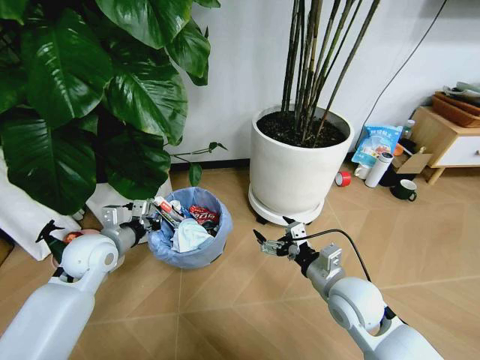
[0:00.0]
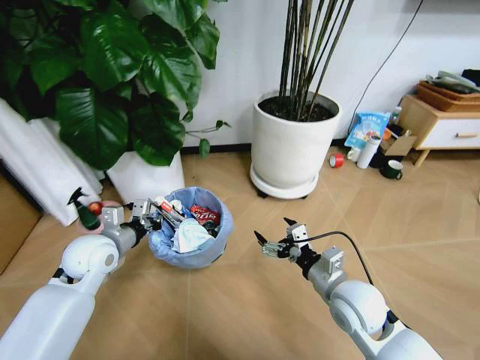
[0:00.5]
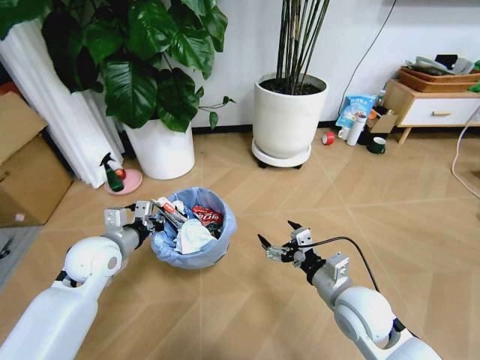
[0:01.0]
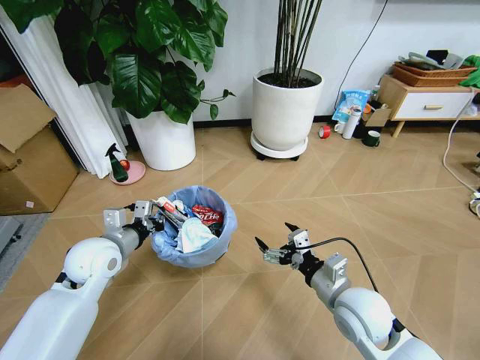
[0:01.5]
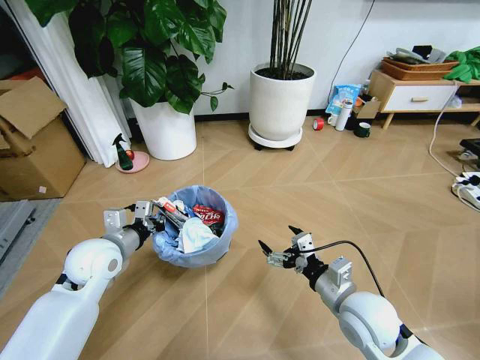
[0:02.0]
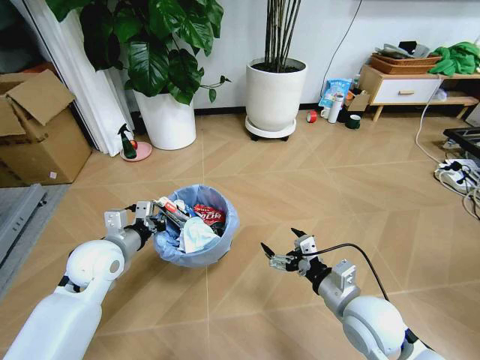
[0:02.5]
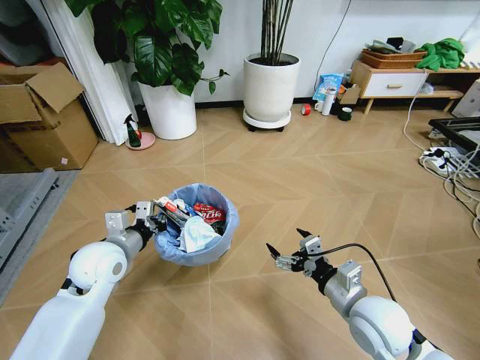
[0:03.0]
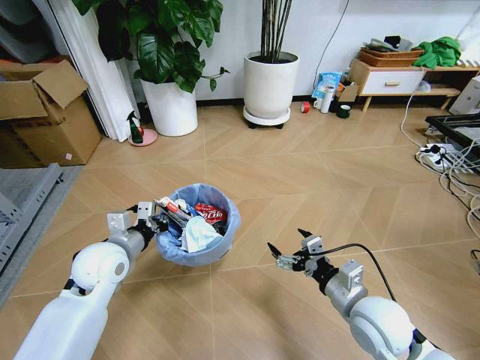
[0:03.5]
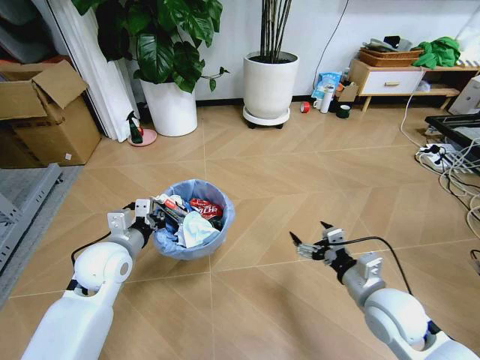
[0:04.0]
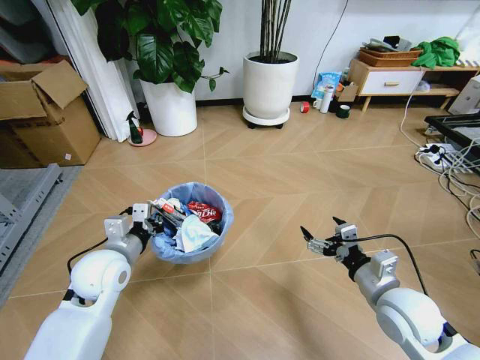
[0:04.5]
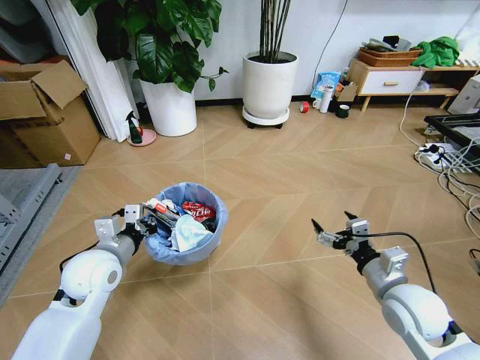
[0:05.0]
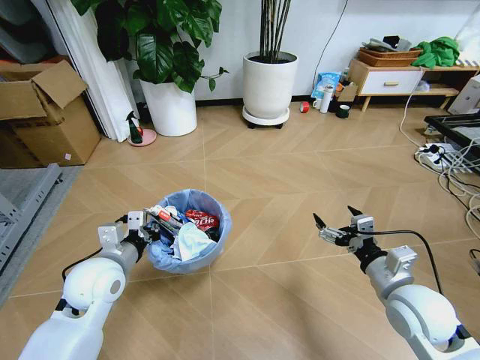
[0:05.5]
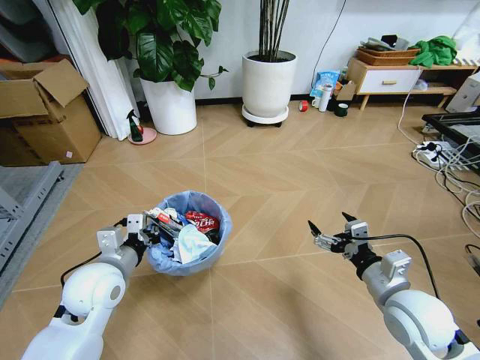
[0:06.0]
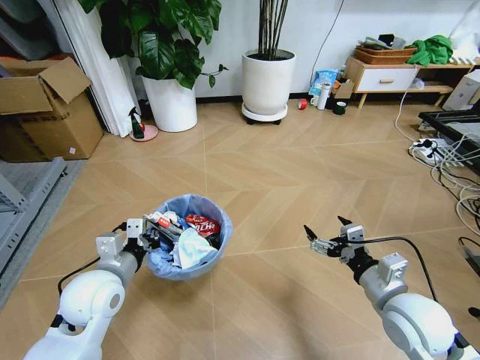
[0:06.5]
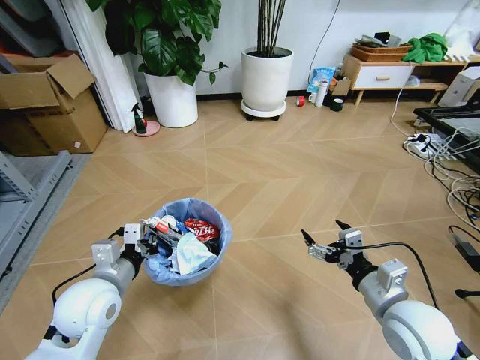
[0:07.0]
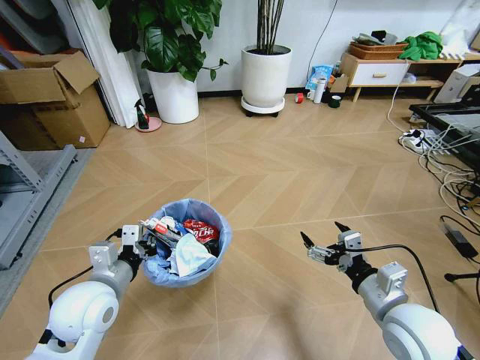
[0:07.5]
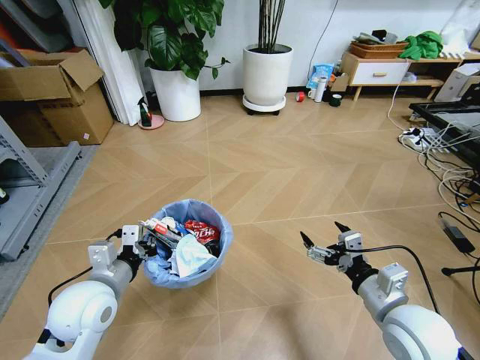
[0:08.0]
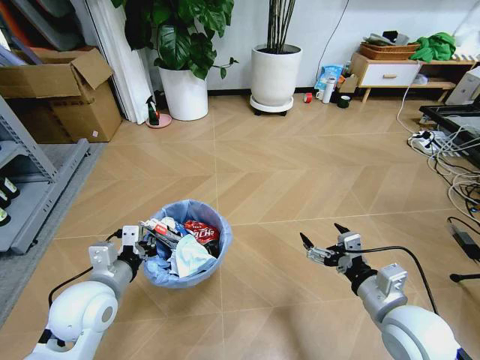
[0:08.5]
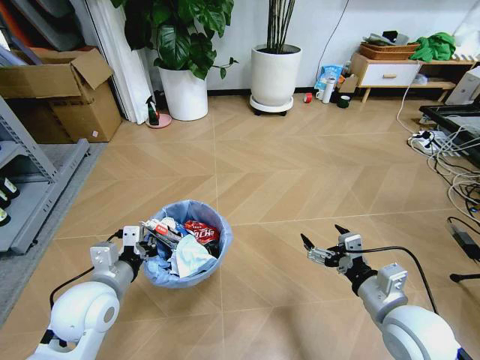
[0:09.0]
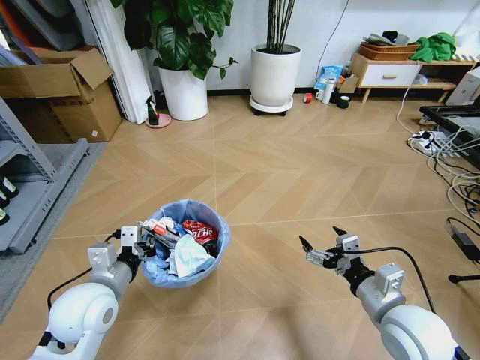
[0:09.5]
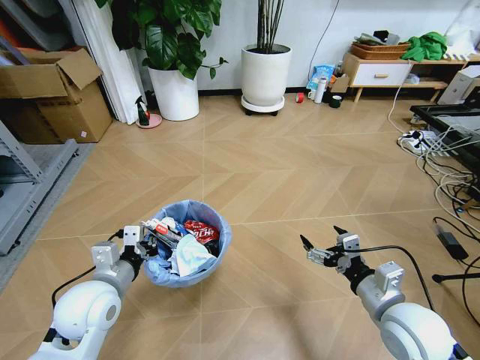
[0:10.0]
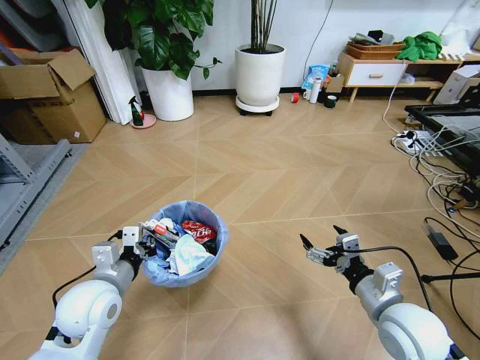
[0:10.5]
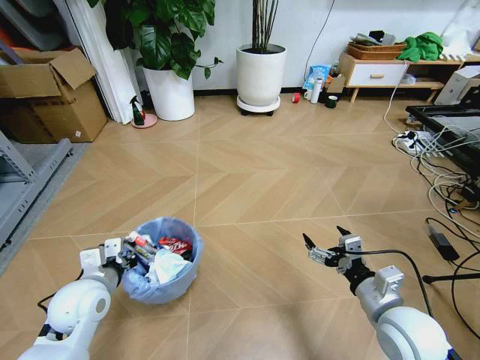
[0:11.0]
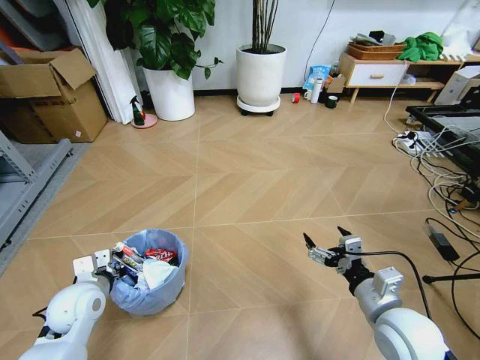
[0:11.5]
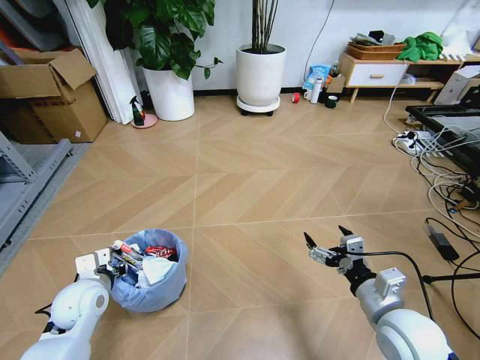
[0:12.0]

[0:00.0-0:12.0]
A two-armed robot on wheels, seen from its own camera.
Task of the whole recording: Pick up the trash bin and place the garbage on the floor into it.
0:02.0 to 0:04.0: The right gripper shifts roughly 5 cm to the right.
0:04.0 to 0:06.0: There are only small adjustments of the grippers.
0:08.0 to 0:10.0: Both grippers stay about where they are.
0:10.0 to 0:12.0: The left gripper heads downward and to the left, covering some 10 cm, and opens up.

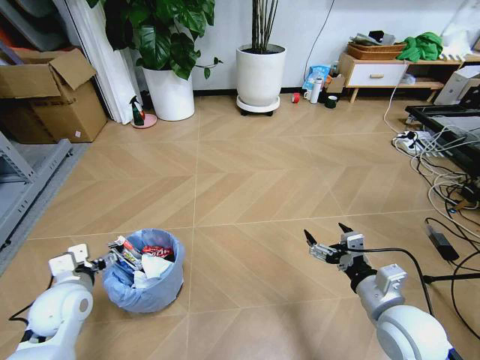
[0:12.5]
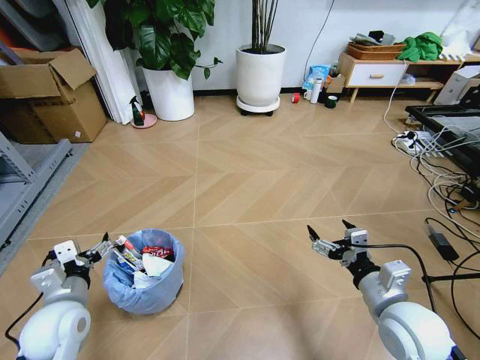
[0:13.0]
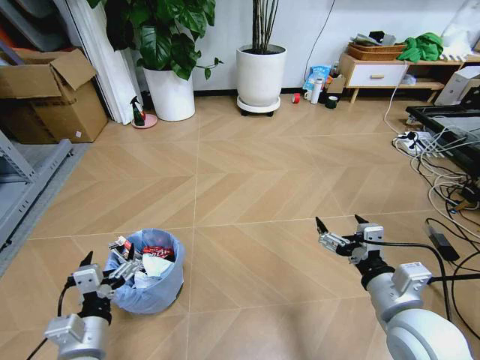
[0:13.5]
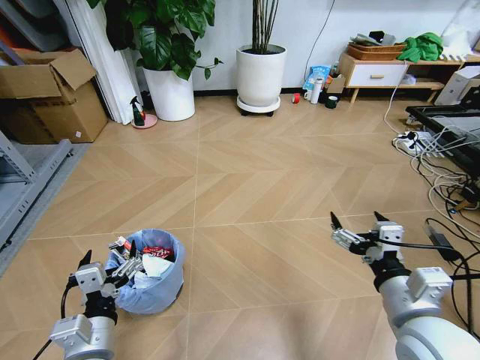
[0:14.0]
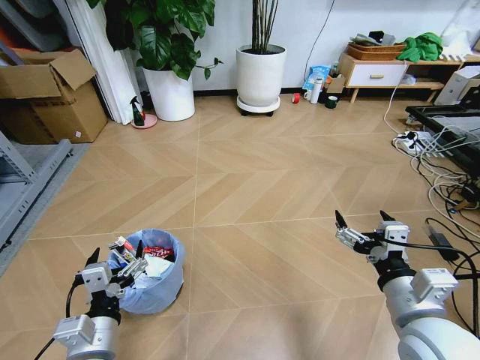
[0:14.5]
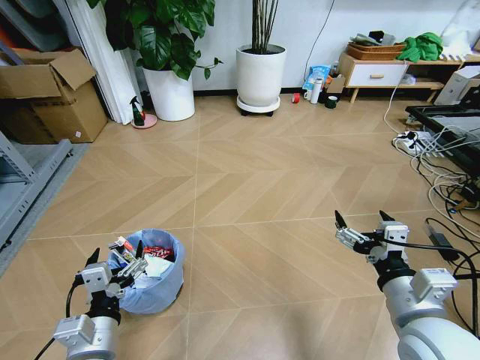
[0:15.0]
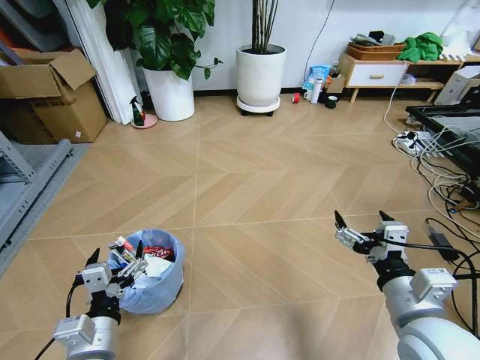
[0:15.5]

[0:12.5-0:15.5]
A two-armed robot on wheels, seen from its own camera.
Task of the whole recording: Pick up the trash bin and place the garbage on the floor into it.
0:12.5 to 0:14.0: The left gripper heads backward and to the right, covering about 20 cm. Meanwhile the right gripper heads upward, covering roughly 5 cm.
0:14.0 to 0:15.5: Neither gripper changes place.

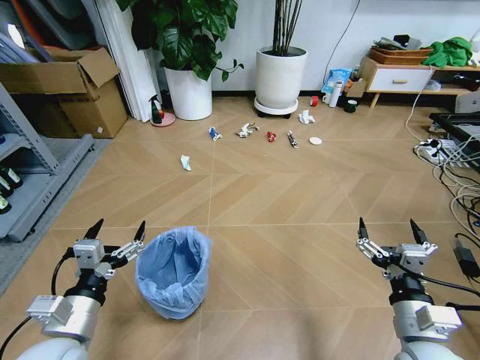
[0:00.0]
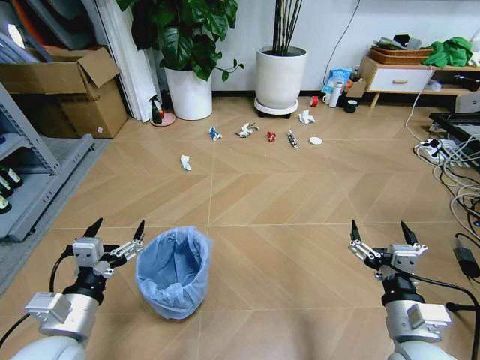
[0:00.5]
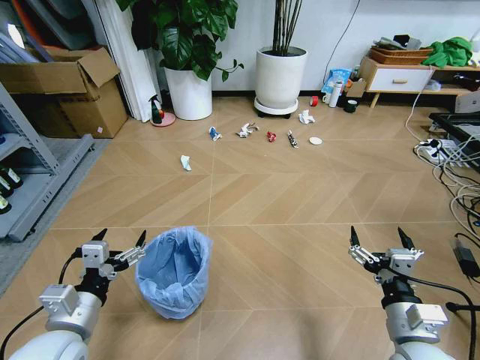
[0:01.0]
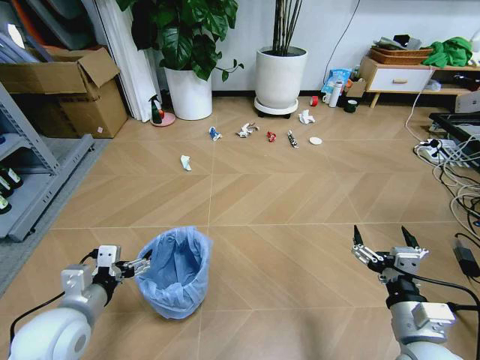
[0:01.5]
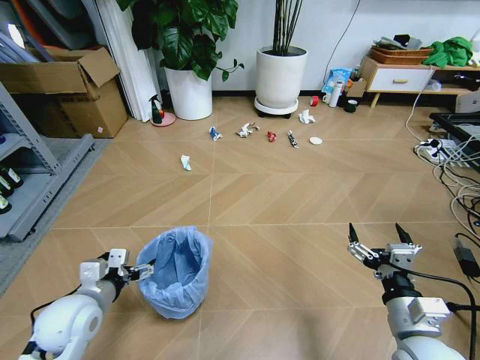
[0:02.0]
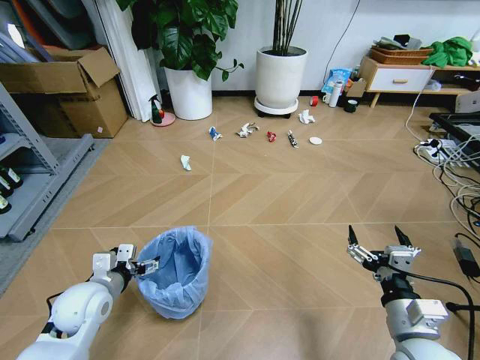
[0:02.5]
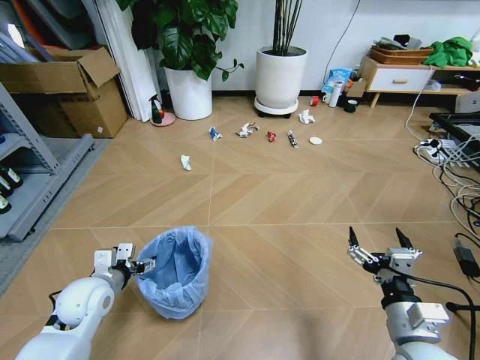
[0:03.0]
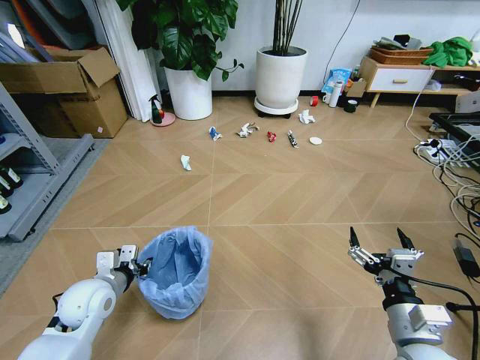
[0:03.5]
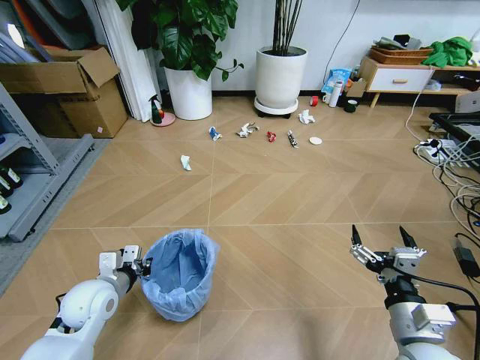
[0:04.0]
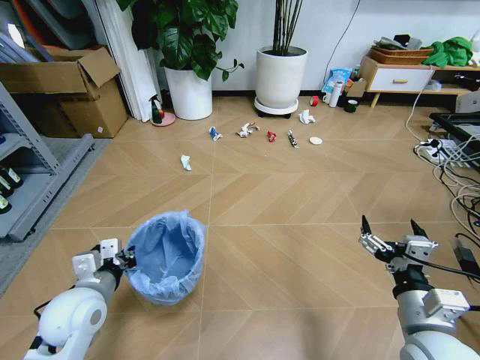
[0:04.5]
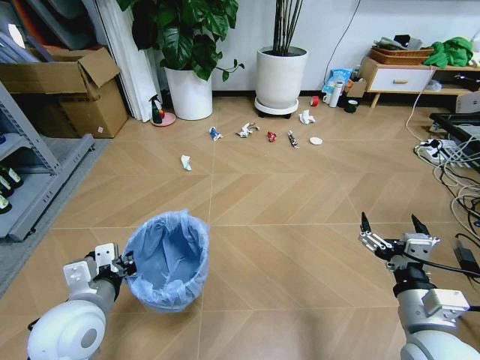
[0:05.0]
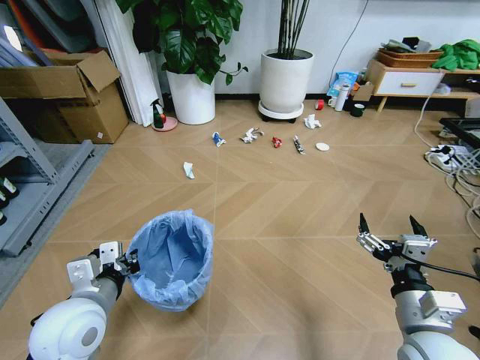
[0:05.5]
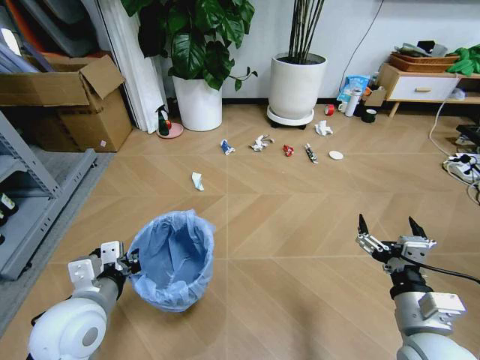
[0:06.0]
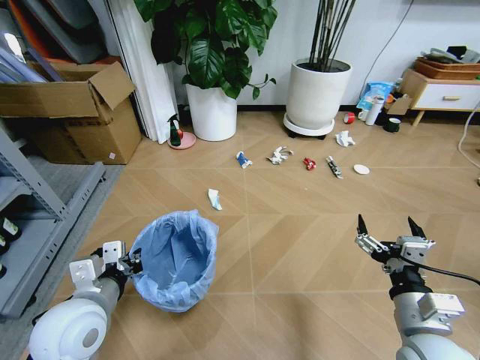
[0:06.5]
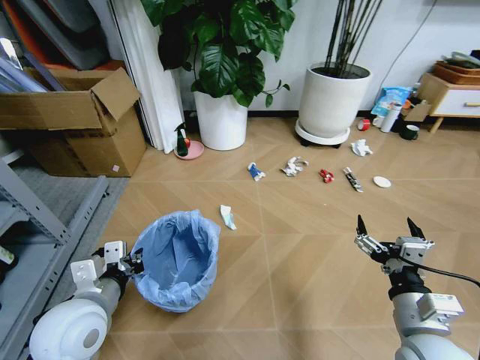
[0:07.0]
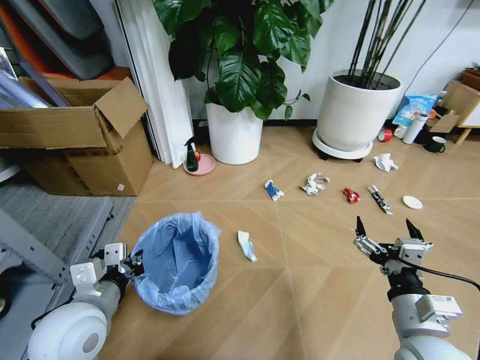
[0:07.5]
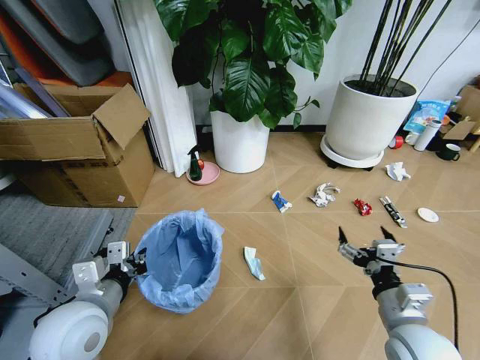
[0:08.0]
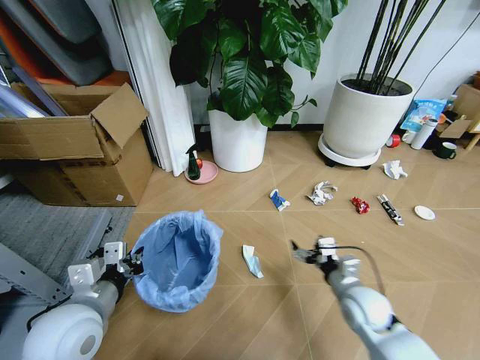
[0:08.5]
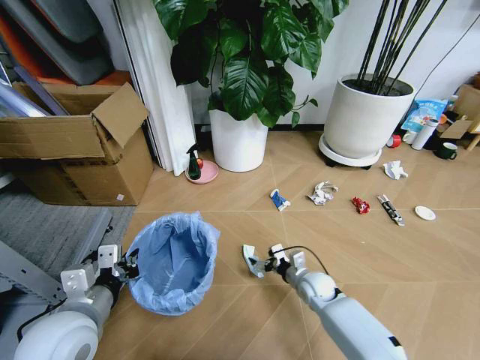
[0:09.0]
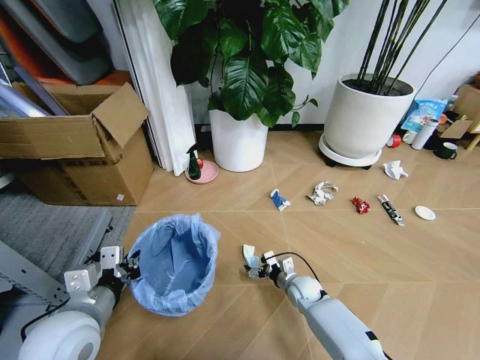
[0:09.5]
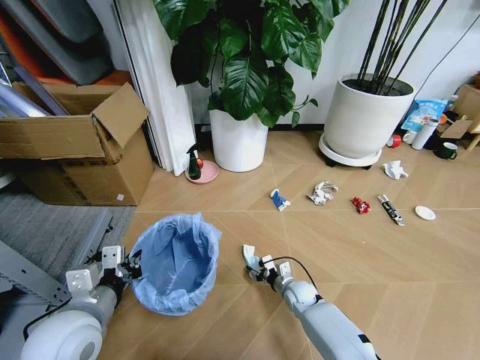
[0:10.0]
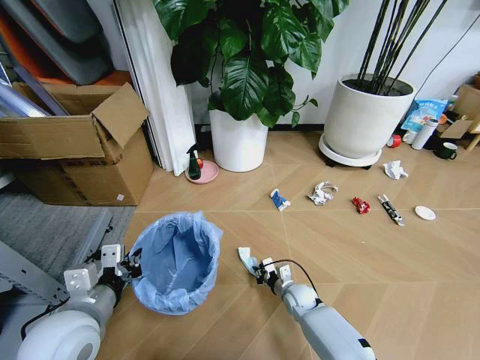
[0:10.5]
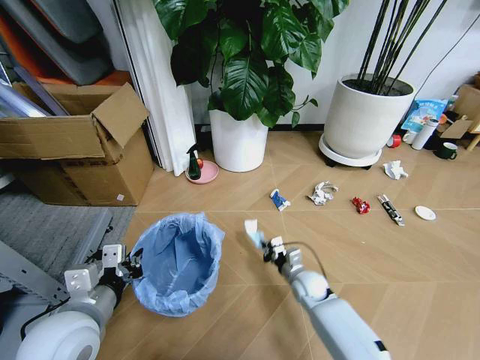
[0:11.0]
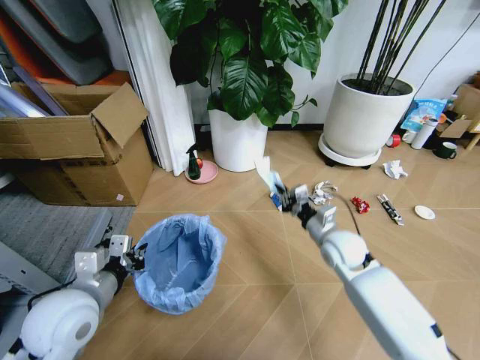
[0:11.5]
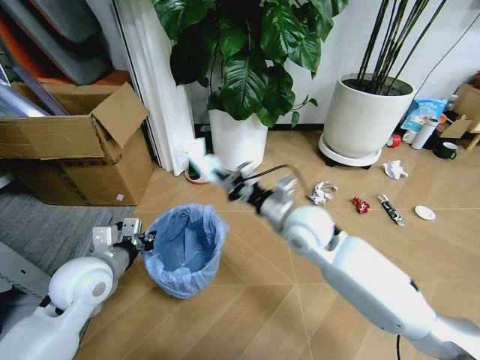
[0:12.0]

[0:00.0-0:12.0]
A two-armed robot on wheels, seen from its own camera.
Task of the whole recording: Pick up the trash bin and place the garbage on the floor into it.
0:02.0 to 0:04.0: The left gripper moves about 5 cm, and closes.
0:04.0 to 0:06.0: The left gripper goes some 10 cm upward and backward.
0:08.0 to 0:10.0: The right gripper travels downward, forward and to the left by roughly 35 cm, and closes.
0:10.0 to 0:12.0: The right gripper heads upward, covering about 35 cm, and closes up. The left gripper goes about 10 cm forward.
